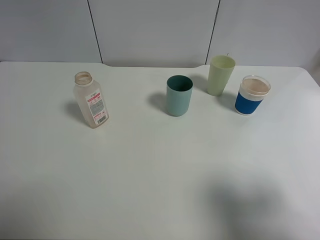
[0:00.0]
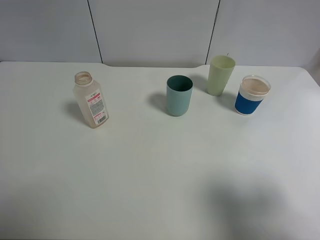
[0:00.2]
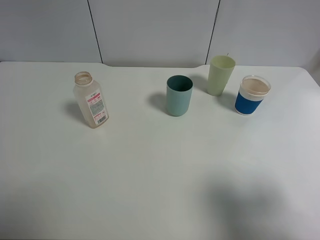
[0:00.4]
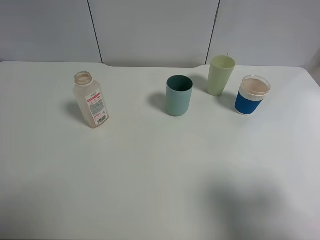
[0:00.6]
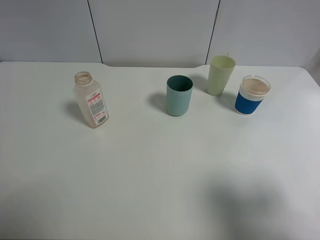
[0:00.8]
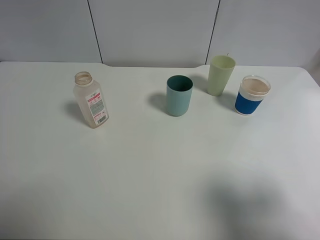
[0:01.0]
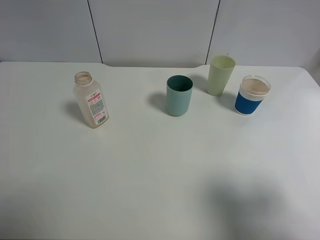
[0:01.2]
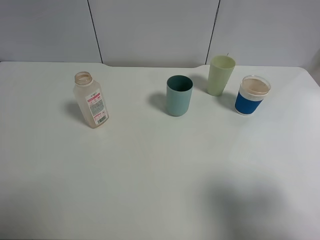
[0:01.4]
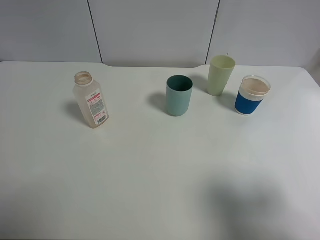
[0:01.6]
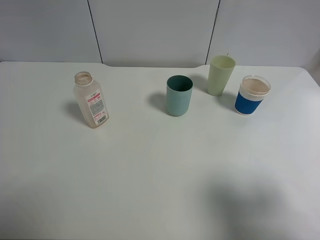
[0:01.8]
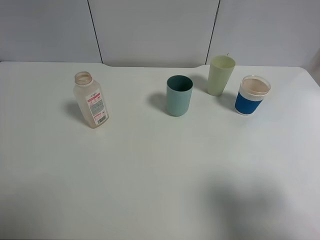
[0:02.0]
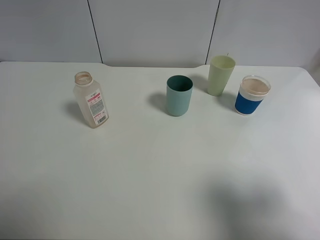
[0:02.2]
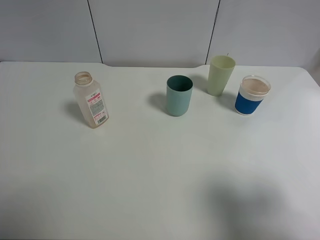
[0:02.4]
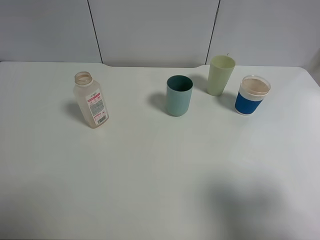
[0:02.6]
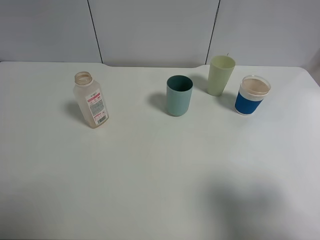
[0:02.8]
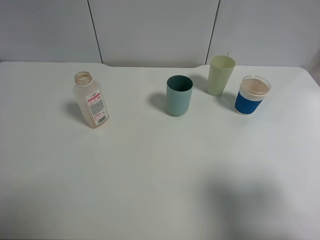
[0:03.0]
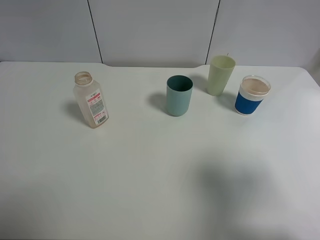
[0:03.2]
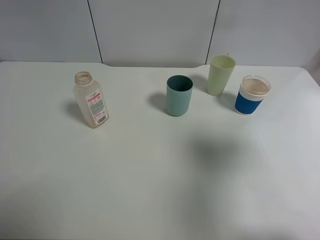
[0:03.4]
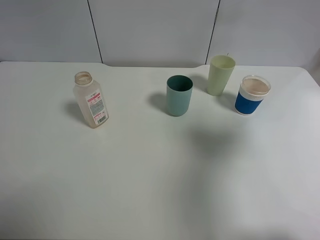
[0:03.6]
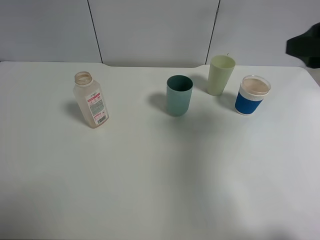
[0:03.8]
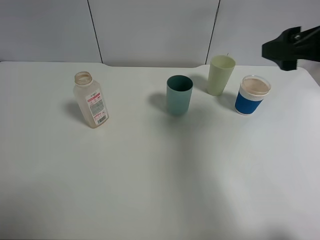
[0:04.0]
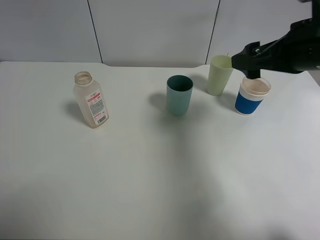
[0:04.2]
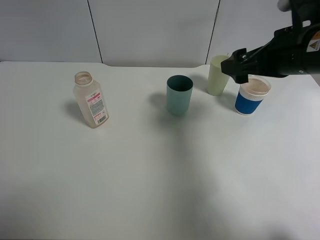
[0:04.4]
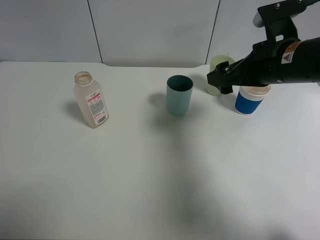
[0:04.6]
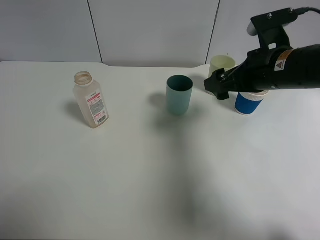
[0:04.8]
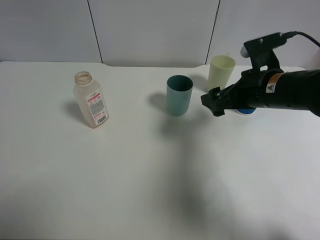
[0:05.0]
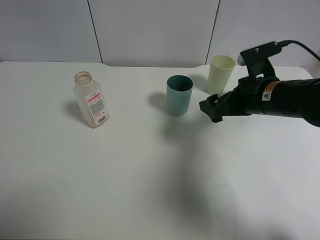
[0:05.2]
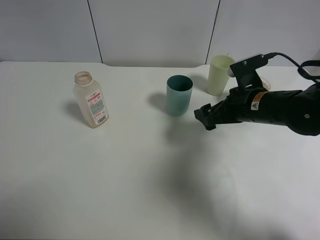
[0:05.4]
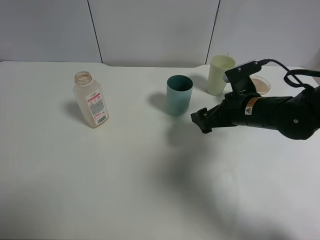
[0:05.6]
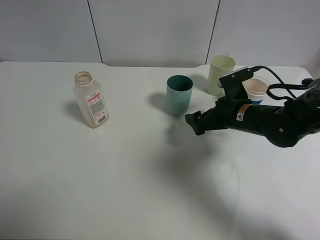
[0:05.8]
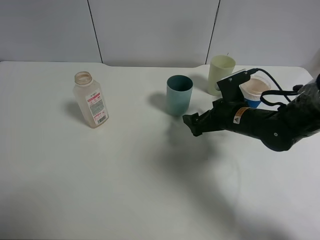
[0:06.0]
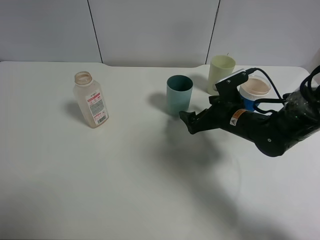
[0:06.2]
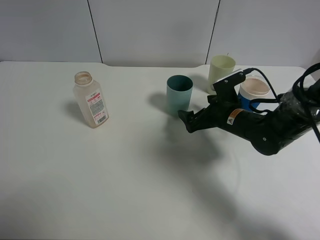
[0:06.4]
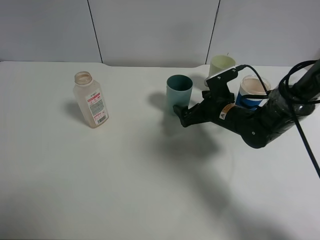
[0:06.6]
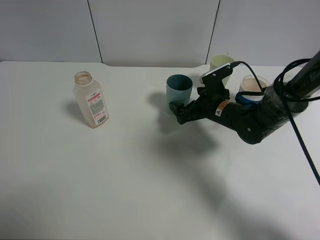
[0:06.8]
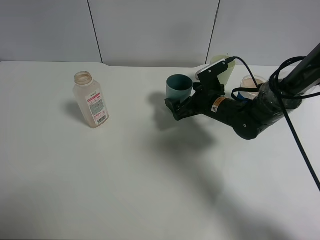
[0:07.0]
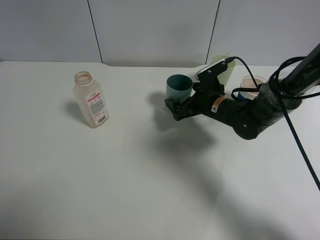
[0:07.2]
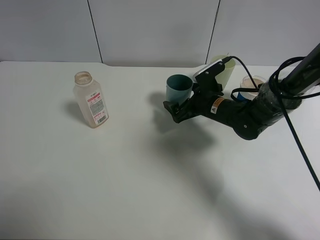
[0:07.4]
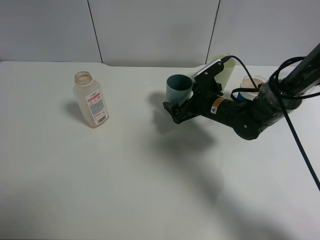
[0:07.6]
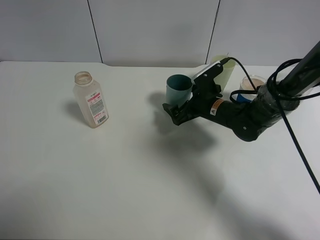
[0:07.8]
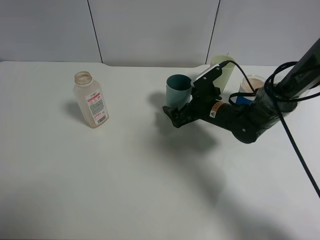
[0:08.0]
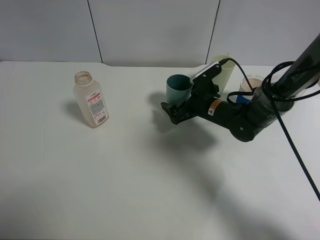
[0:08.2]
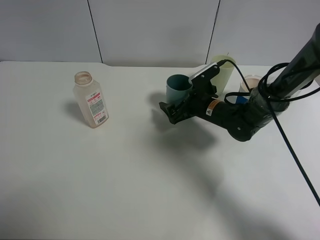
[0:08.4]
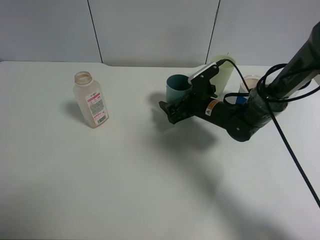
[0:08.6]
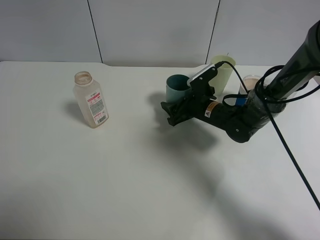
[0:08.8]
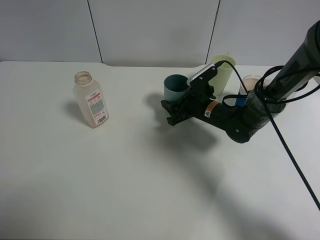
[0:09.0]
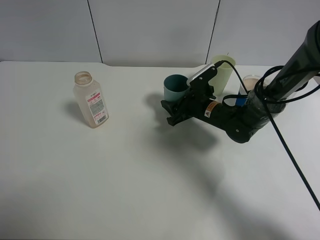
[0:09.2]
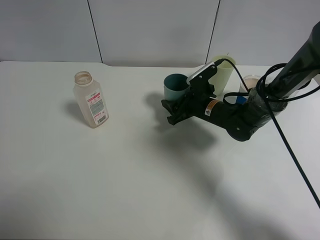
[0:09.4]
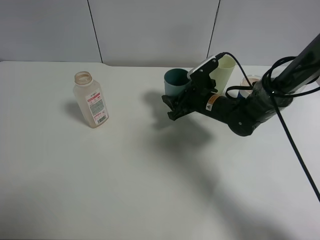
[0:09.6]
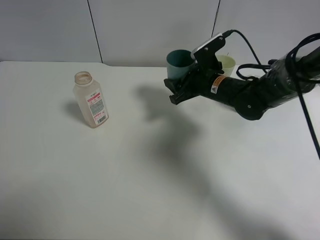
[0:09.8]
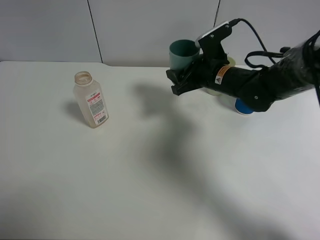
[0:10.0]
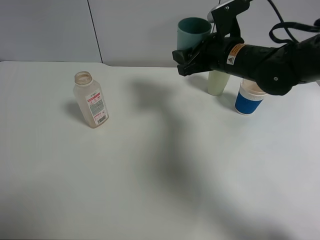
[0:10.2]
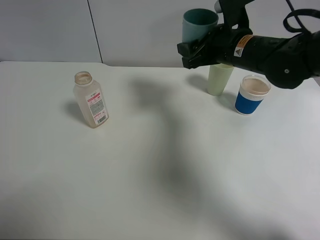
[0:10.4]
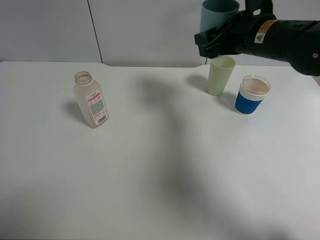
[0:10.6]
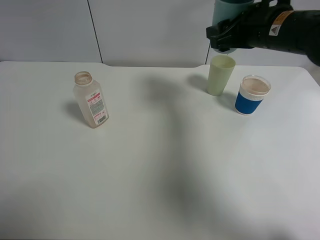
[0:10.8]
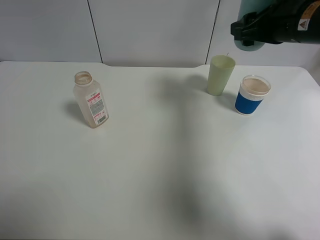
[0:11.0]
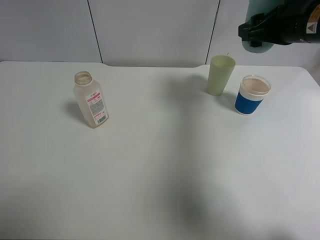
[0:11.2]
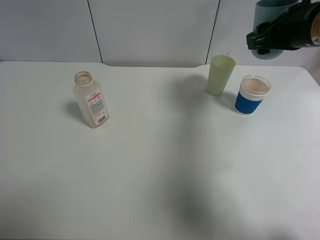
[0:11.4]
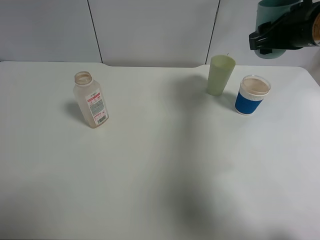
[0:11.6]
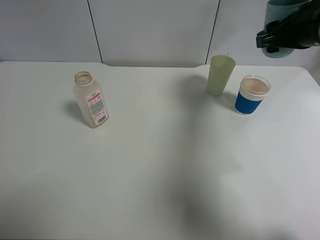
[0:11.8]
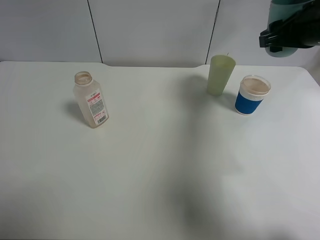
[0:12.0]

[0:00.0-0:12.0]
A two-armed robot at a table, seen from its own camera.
Task of the whole recording: use a clamp to hold the bottle of the drink, pour the beverage into a random cup, then clamp the cup containing the drink and pour the drink into another random cup.
Step, 0:00.0 to 0:09.6: Pick up the blue plastic cup bottle with right gripper.
0:03.0 to 0:04.4: The right gripper shifts some 25 cm forward and to the left.
0:04.4 to 0:06.0: The right gripper travels downward by some 15 cm.
0:06.0 to 0:07.6: The right gripper heads forward, covering roughly 5 cm.
0:07.6 to 0:09.0: The right gripper closes up.
0:09.0 to 0:10.4: The right gripper goes about 15 cm upward.
0:10.4 to 0:12.0: The right gripper goes some 10 cm to the right.

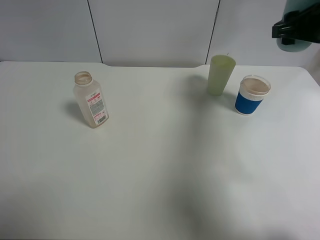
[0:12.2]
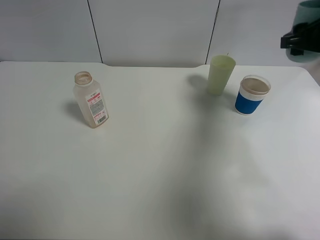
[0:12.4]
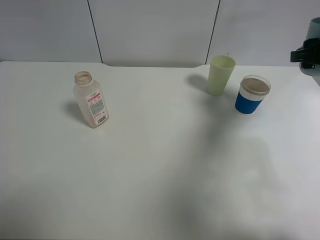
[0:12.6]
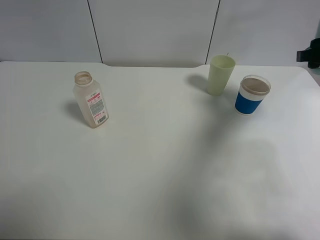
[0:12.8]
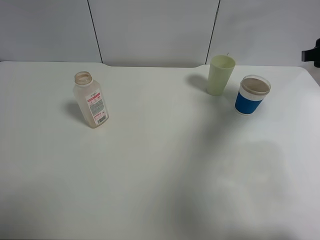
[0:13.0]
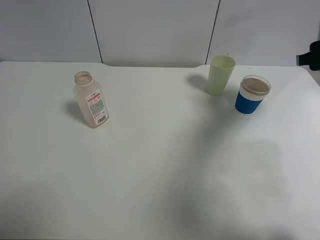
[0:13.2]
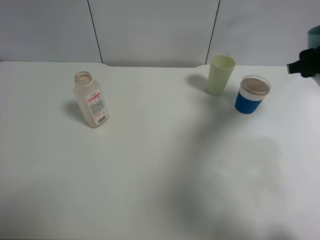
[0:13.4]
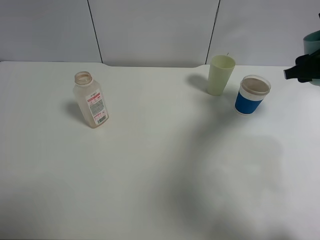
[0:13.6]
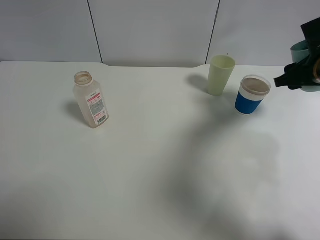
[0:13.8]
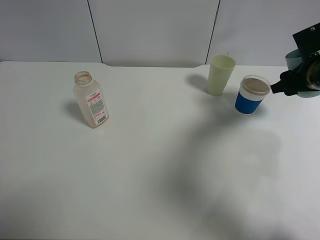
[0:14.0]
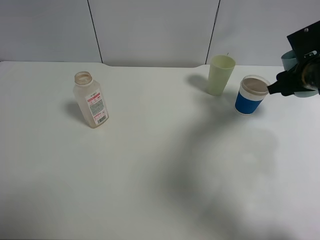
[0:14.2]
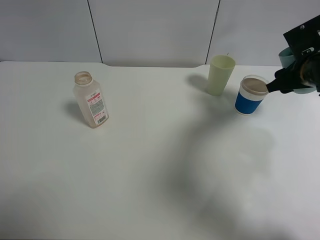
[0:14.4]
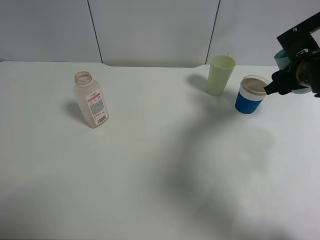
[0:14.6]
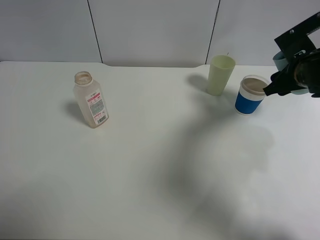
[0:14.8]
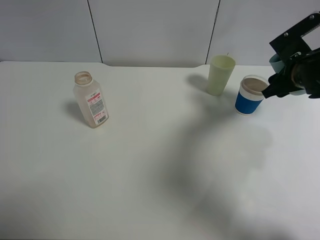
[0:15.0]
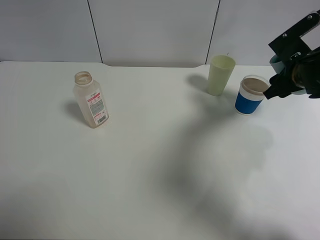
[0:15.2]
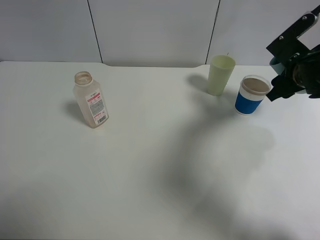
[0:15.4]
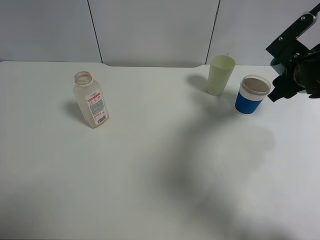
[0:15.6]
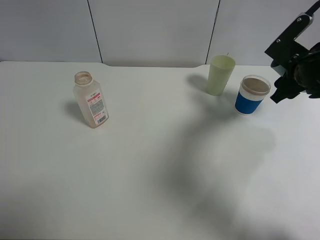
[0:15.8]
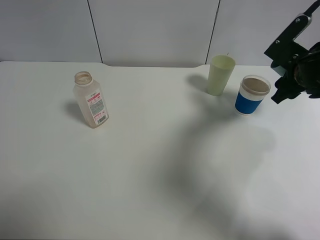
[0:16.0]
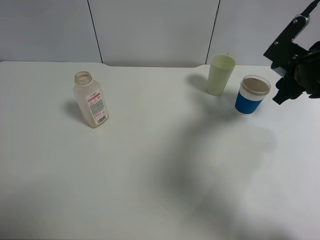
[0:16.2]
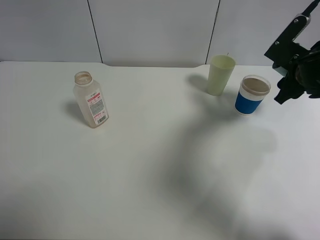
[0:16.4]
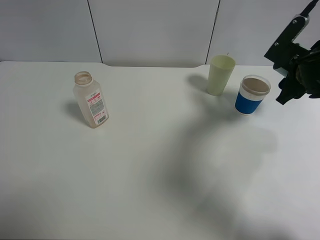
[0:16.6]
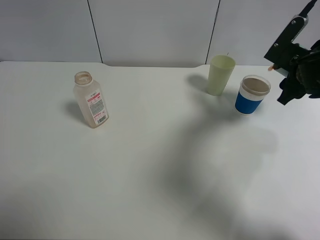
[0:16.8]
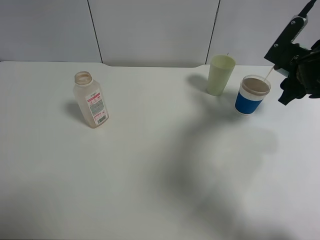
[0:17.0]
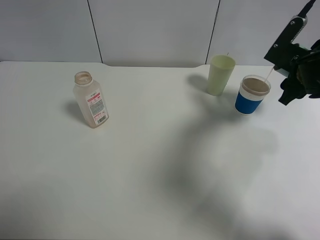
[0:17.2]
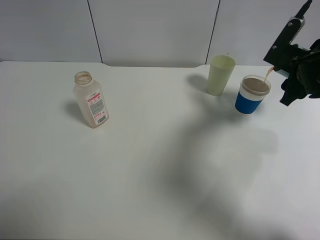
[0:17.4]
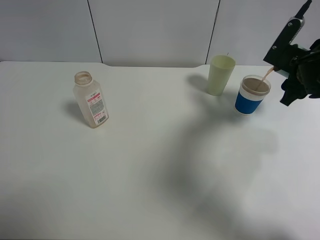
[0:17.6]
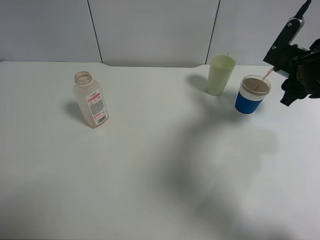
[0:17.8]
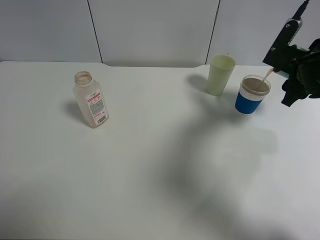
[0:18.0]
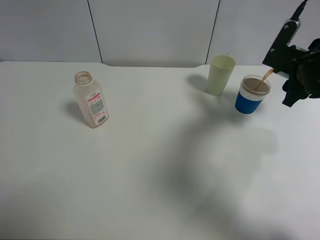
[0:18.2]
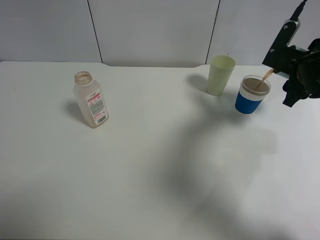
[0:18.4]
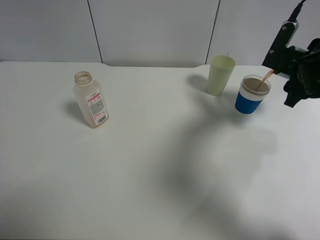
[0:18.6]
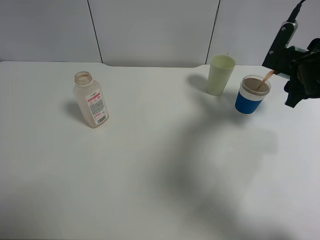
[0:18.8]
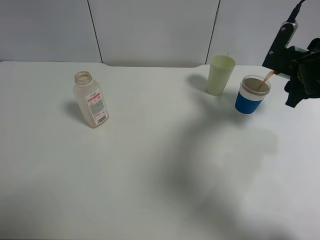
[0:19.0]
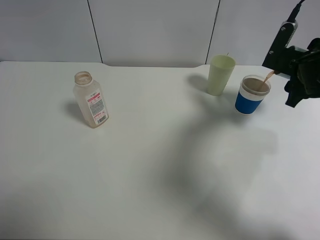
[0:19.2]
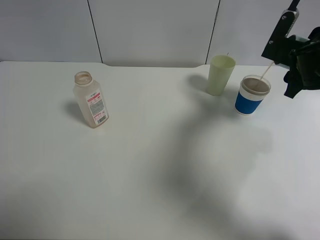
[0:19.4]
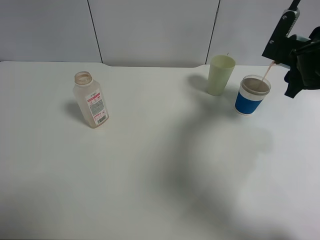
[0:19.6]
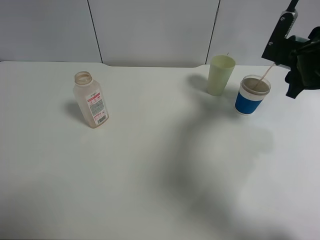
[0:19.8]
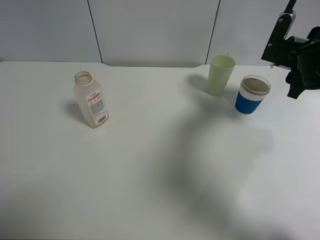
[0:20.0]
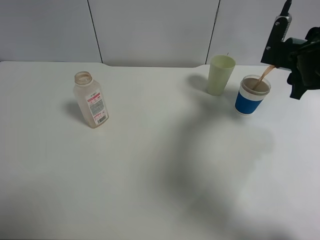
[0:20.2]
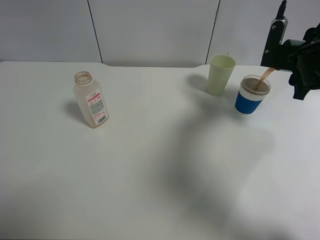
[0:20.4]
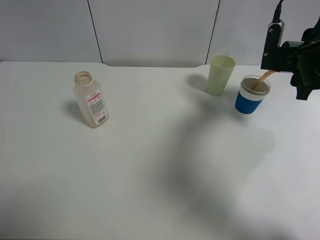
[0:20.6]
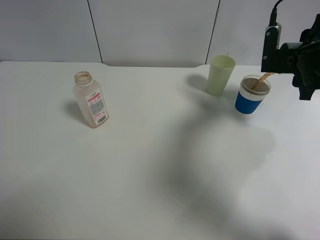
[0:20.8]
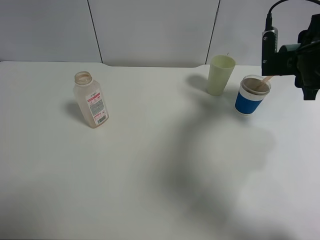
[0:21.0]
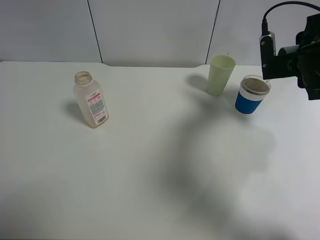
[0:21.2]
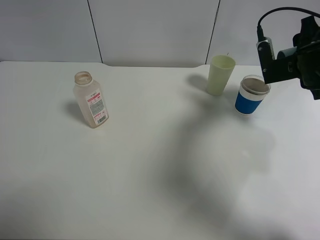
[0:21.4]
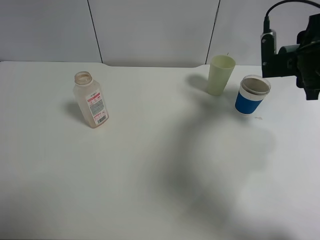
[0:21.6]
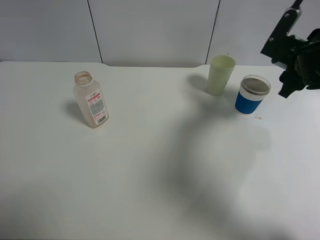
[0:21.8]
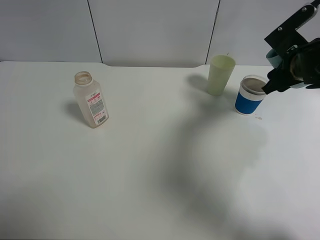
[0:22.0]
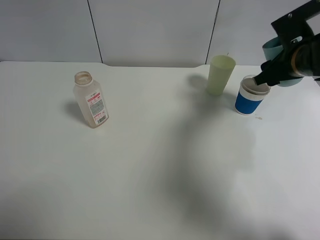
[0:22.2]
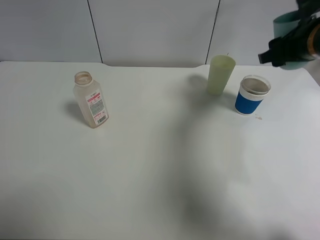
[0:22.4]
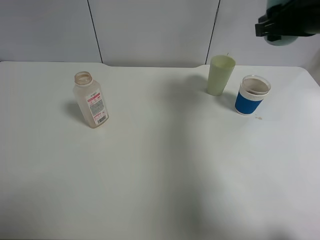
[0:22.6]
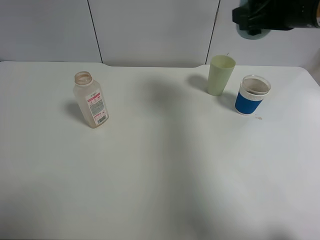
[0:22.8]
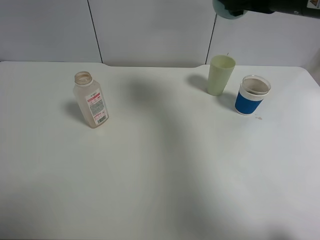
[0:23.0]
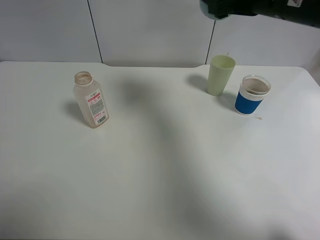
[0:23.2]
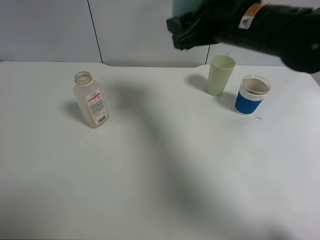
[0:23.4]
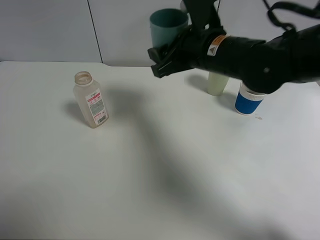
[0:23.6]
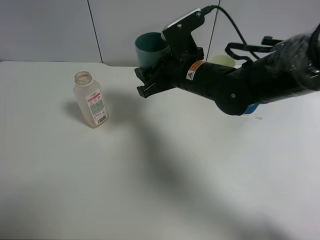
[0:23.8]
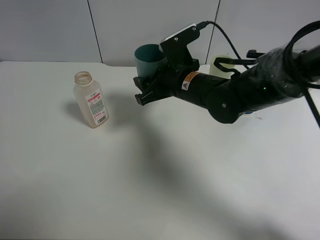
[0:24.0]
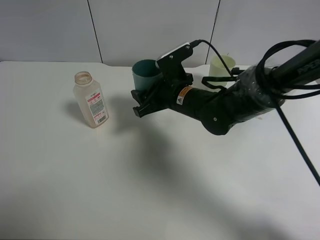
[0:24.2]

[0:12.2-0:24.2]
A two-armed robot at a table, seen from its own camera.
Task of the whole recording: use a clamp to hold the bottle of the drink, pour the beverage into a random cup, then clamp the cup containing the drink and pour the drink into another random cup.
Step, 0:12.2 to 0:21.6: Pour the drink into the paper cup with right gripper.
0:12.2 to 0:13.8: The right gripper goes roughly 10 cm downward.
0:13.8 to 0:15.2: There are only small adjustments of the grippers.
0:15.2 to 0:16.6: The grippers stay close to where they were, moving slightly.
0:16.6 to 0:19.8: There are only small adjustments of the grippers.
0:21.2 to 0:22.6: The right gripper heads upward and to the left, covering roughly 10 cm.
0:22.6 to 0:24.2: The right gripper moves downward and to the left, some 25 cm.
